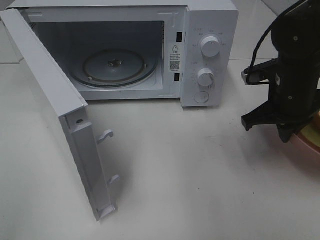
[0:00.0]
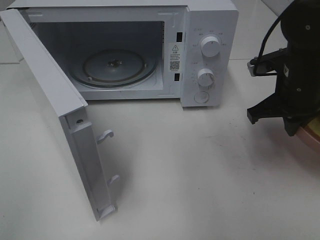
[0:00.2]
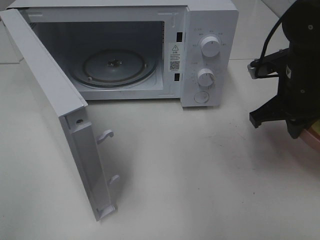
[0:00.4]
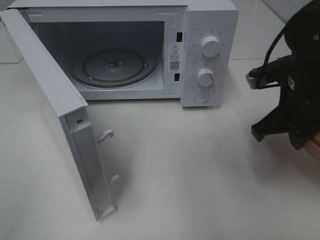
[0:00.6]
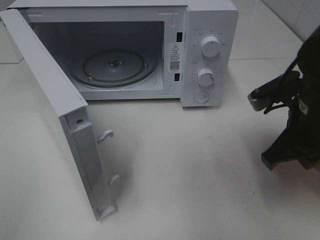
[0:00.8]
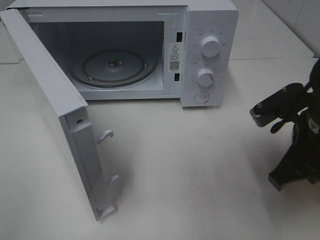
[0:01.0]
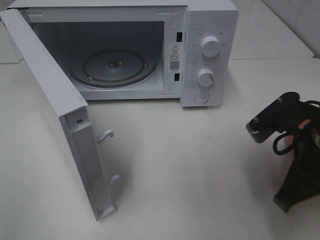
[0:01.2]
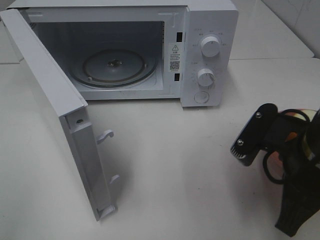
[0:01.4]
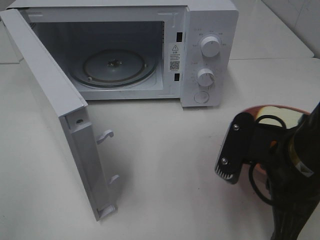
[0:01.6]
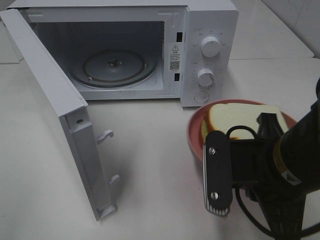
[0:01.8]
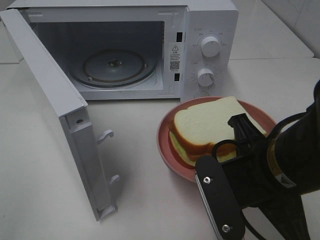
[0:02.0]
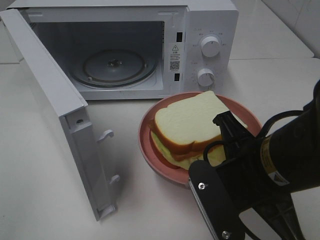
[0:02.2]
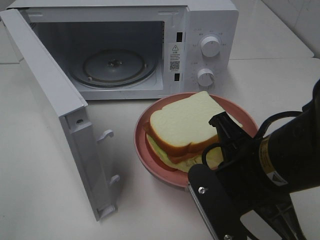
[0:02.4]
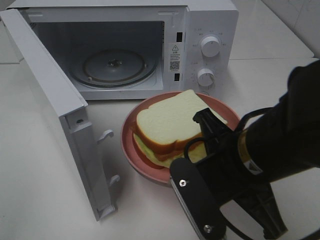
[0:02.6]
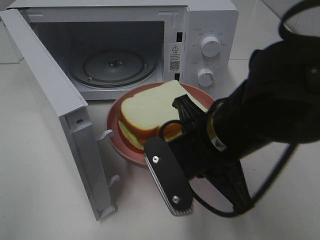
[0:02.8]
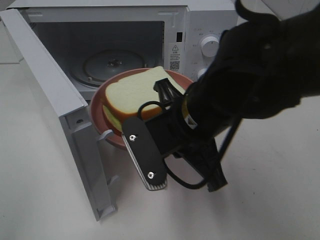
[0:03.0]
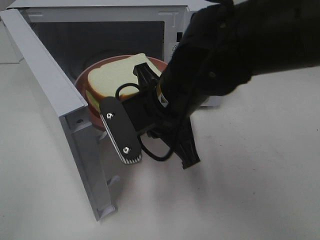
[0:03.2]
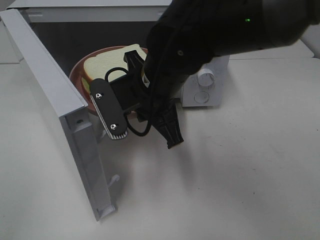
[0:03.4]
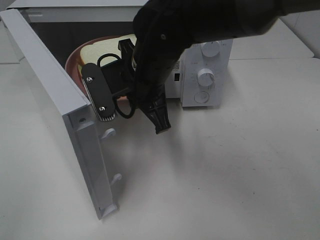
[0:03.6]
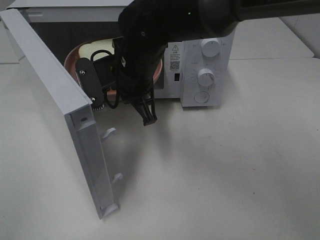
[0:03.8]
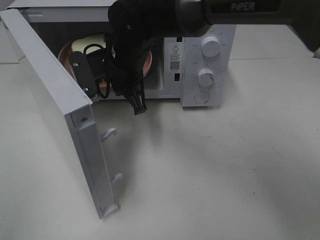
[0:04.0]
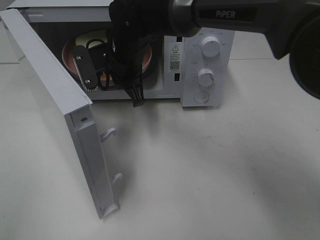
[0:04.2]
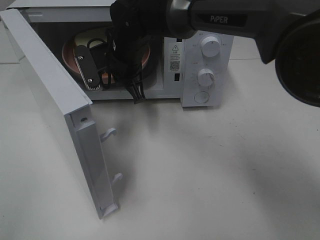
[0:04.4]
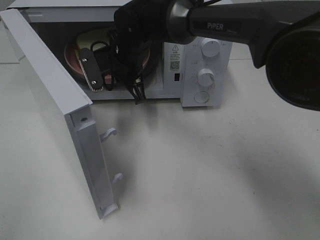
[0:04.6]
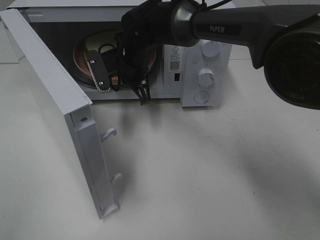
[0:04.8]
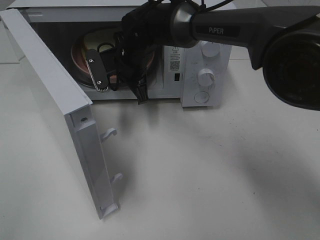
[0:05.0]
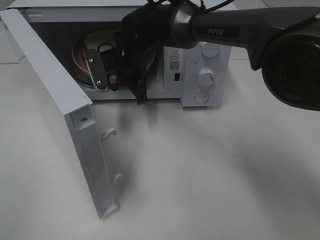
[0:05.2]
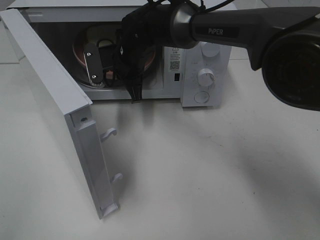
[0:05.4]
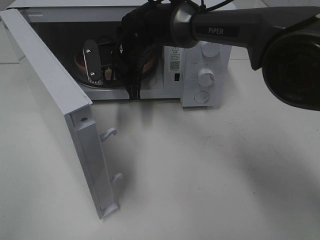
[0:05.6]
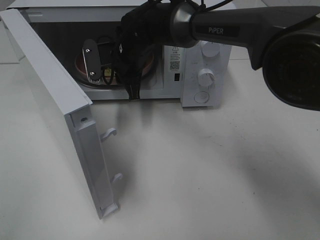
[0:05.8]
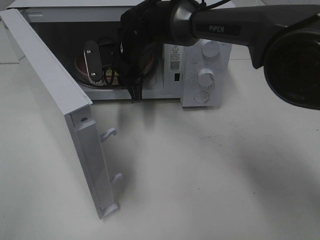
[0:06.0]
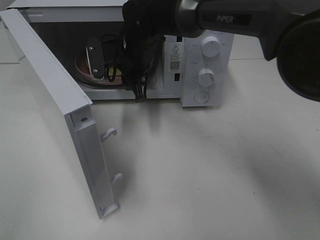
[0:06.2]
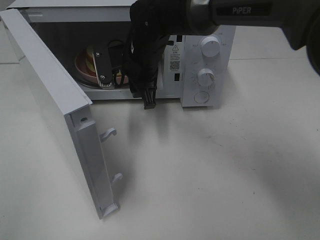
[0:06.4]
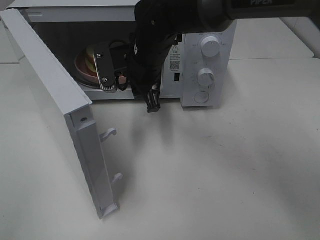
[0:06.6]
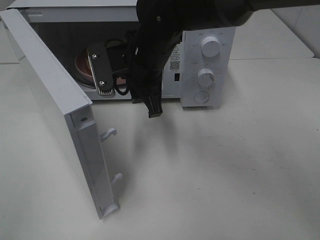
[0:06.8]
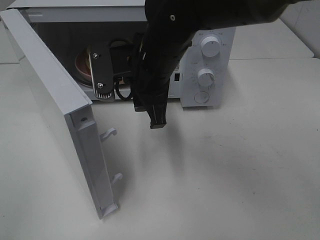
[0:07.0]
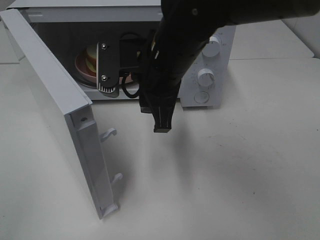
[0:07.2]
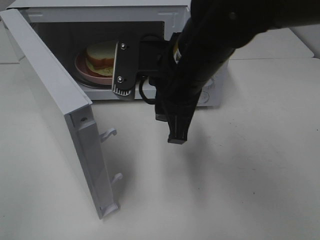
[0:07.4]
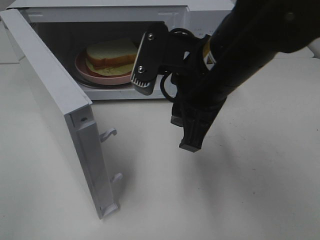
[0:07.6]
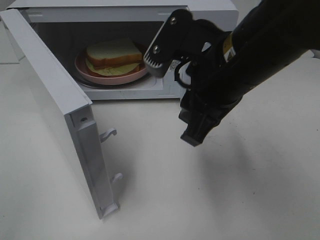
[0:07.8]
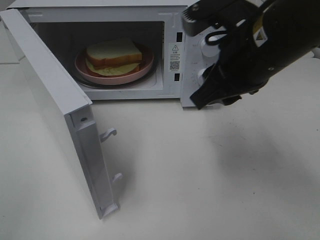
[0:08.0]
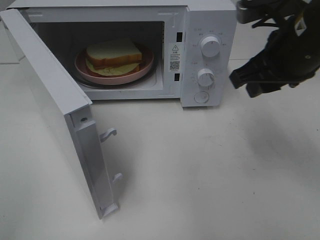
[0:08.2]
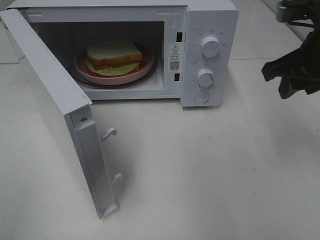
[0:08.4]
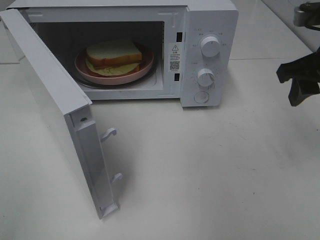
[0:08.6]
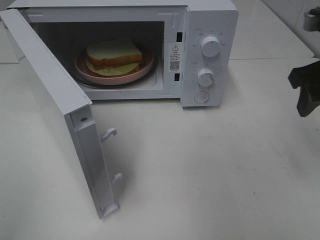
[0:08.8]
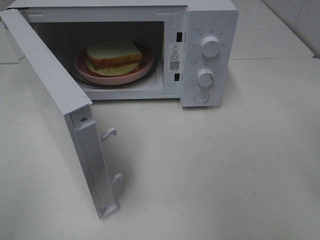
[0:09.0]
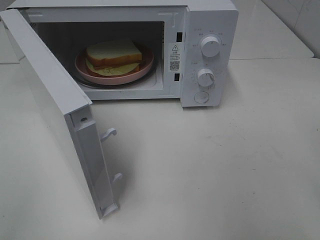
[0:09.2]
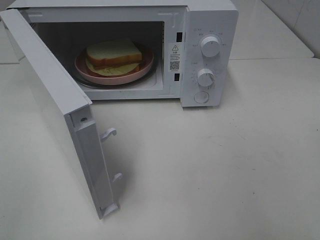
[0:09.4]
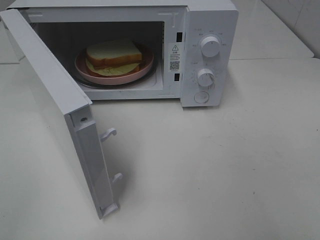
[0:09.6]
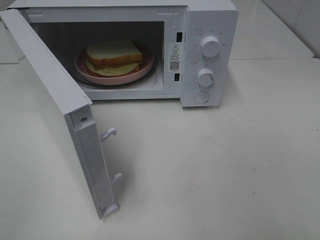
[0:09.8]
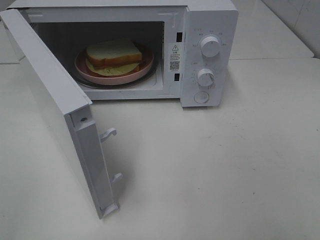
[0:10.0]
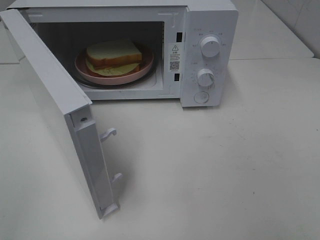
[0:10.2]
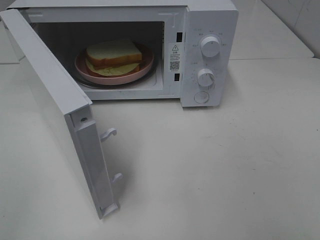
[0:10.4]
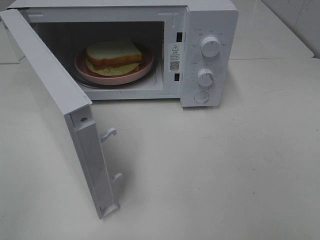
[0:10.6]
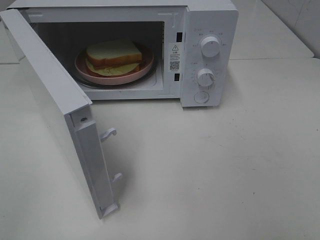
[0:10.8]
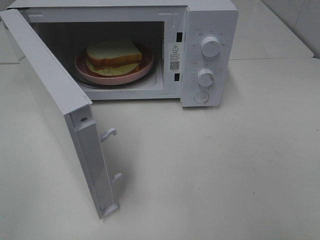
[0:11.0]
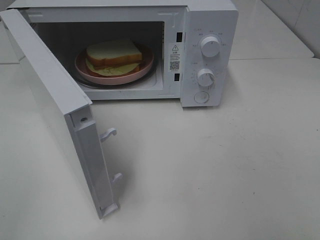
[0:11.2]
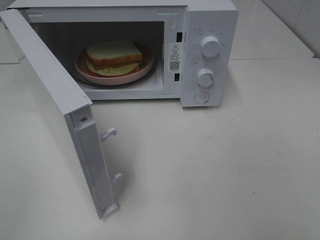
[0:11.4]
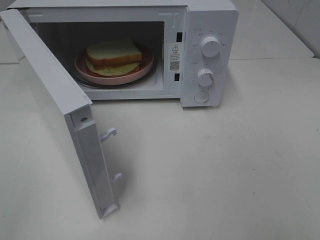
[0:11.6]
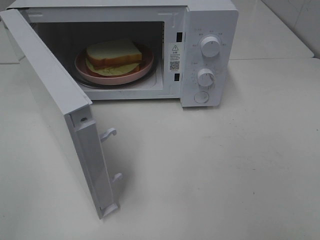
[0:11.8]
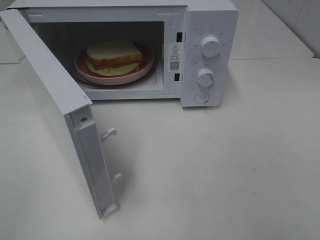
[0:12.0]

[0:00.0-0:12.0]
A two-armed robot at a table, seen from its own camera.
Task of the whole recording: Heat Sandwich.
Step, 0:00.0 to 0:06.6: Right hand: place the plate in the microwave.
0:00.0 to 0:01.6: The right gripper heads backward and to the left, covering about 15 cm.
0:01.6 to 0:03.0: The right gripper travels to the left and forward by some 10 cm.
0:03.0 to 0:04.4: The right gripper is displaced forward and to the left by approximately 20 cm.
0:04.4 to 0:06.0: The right gripper opens its fingers.
0:06.0 to 0:07.6: The right gripper is displaced backward, to the right and upward by some 25 cm.
0:07.6 to 0:09.0: The right gripper is displaced to the right by approximately 20 cm, and opens up.
0:10.4 to 0:12.0: Both grippers stay put.

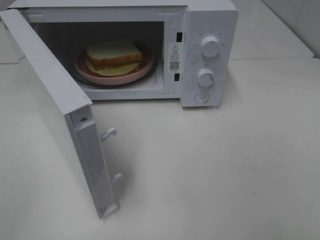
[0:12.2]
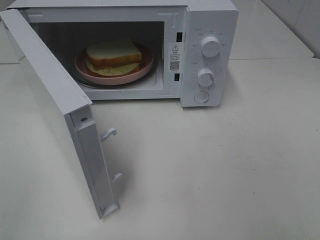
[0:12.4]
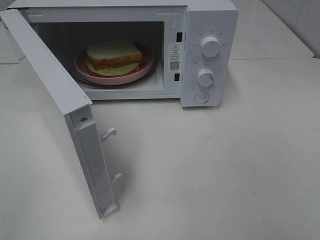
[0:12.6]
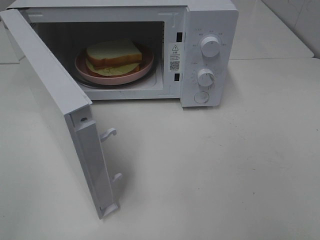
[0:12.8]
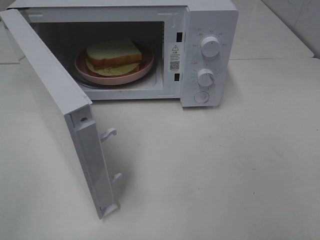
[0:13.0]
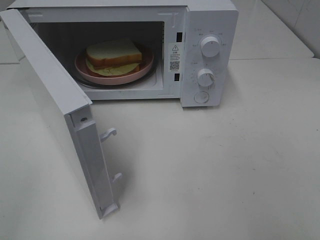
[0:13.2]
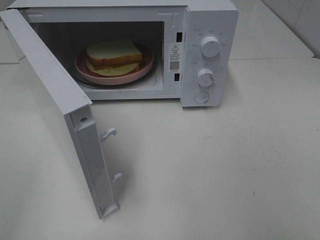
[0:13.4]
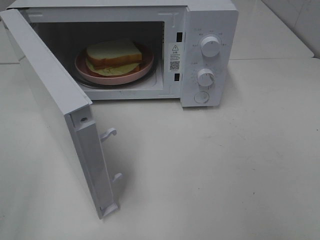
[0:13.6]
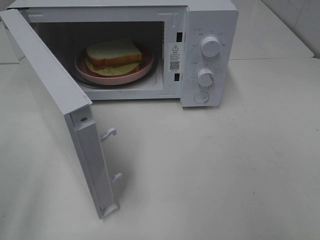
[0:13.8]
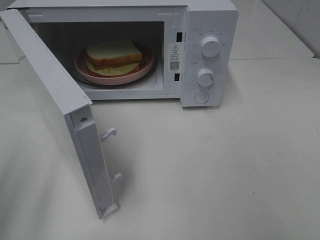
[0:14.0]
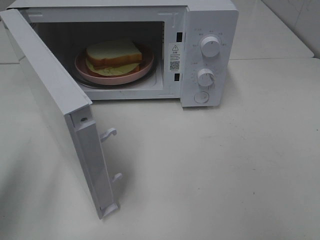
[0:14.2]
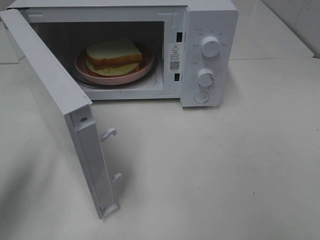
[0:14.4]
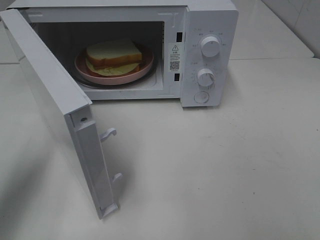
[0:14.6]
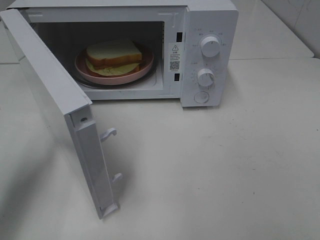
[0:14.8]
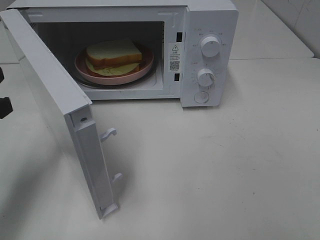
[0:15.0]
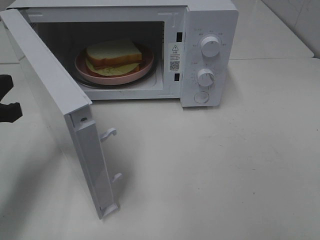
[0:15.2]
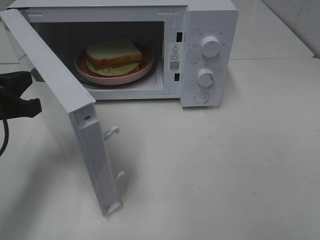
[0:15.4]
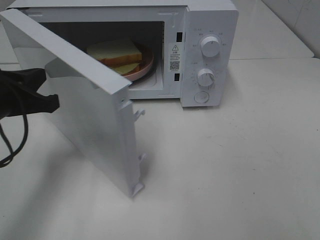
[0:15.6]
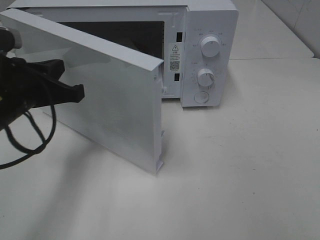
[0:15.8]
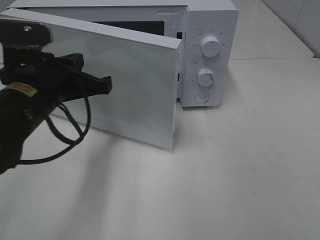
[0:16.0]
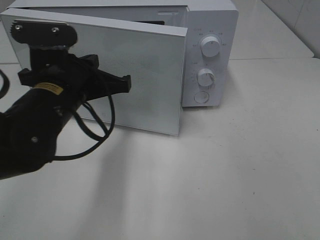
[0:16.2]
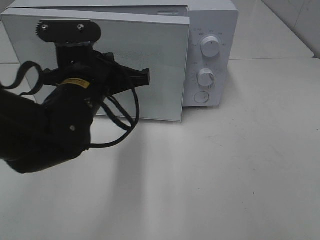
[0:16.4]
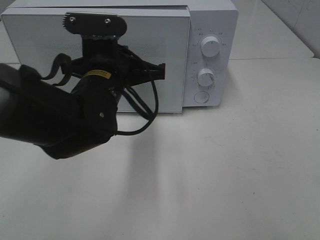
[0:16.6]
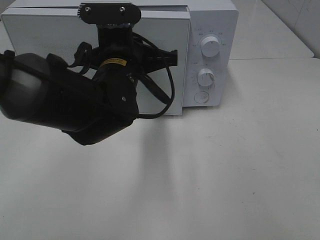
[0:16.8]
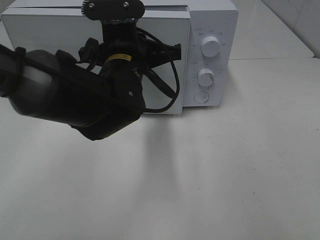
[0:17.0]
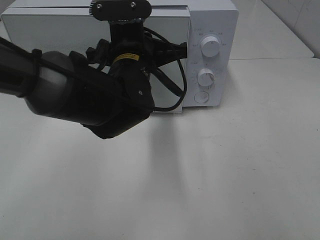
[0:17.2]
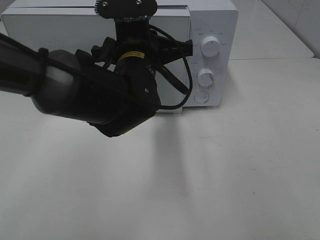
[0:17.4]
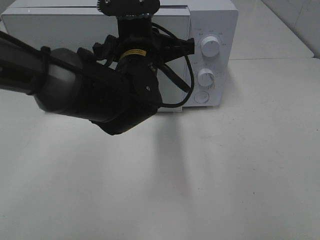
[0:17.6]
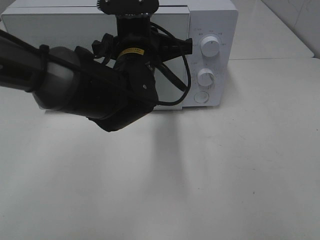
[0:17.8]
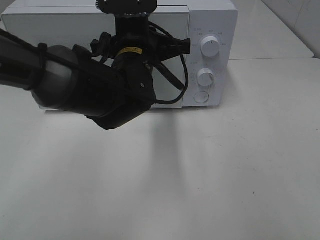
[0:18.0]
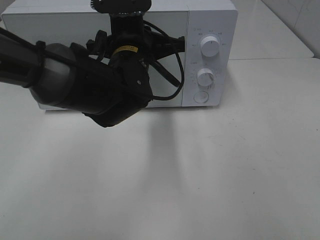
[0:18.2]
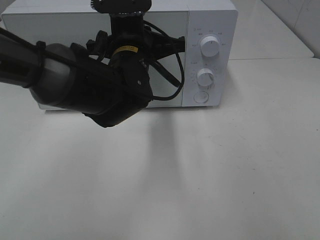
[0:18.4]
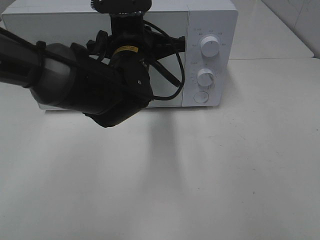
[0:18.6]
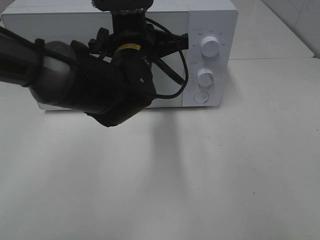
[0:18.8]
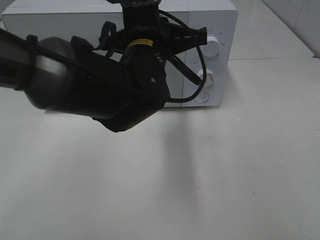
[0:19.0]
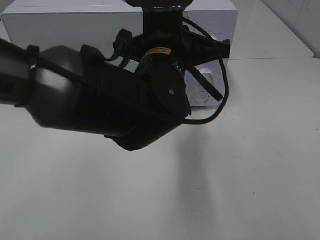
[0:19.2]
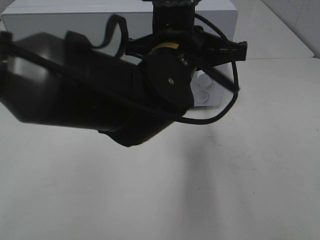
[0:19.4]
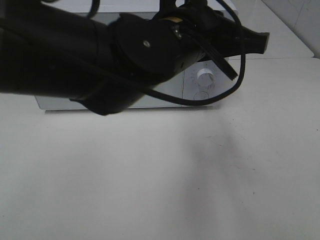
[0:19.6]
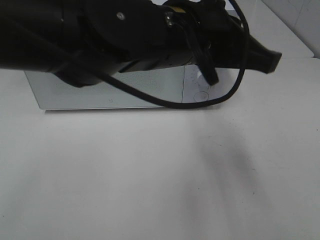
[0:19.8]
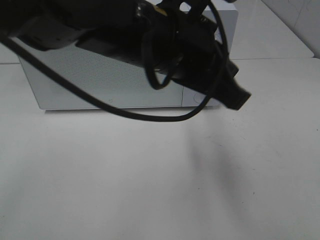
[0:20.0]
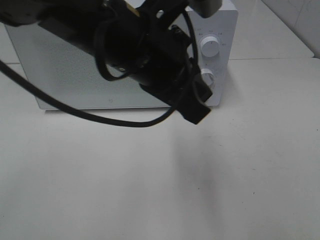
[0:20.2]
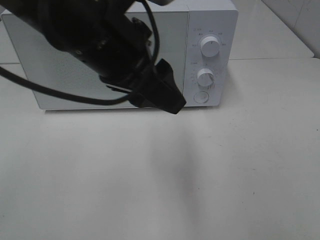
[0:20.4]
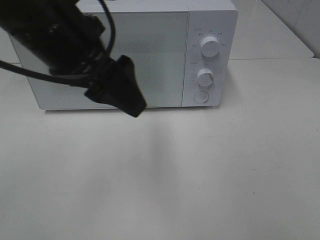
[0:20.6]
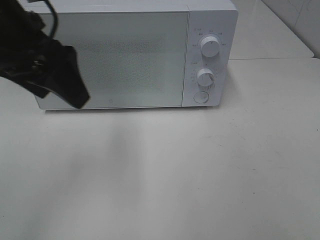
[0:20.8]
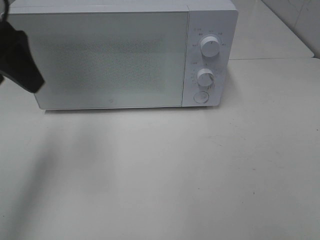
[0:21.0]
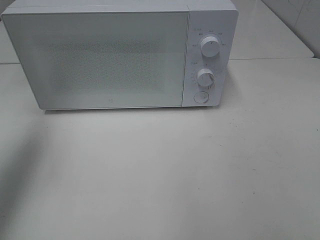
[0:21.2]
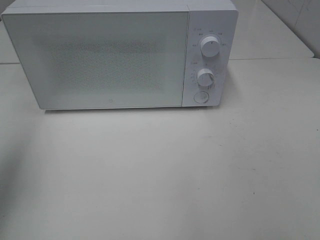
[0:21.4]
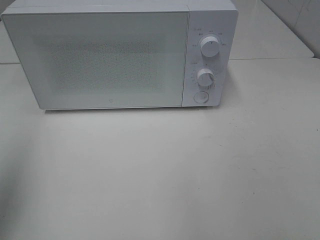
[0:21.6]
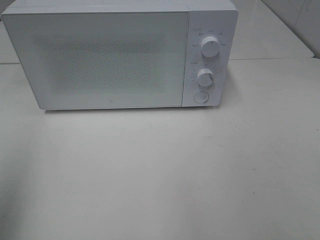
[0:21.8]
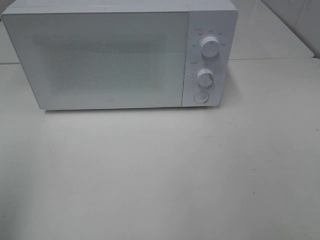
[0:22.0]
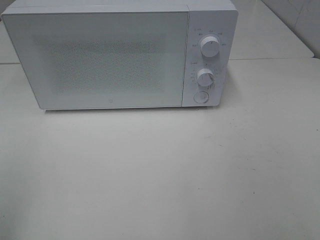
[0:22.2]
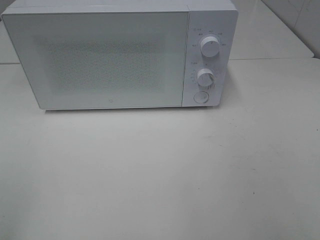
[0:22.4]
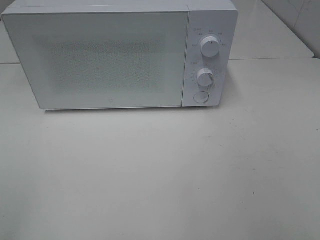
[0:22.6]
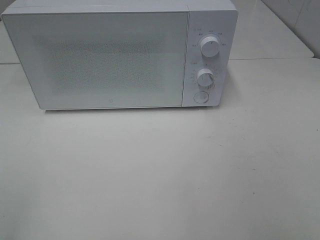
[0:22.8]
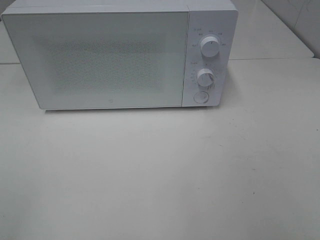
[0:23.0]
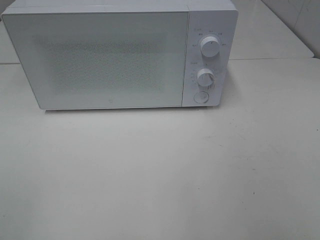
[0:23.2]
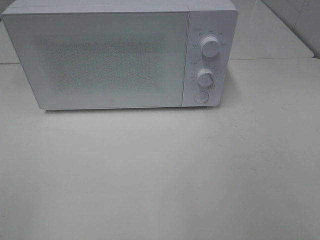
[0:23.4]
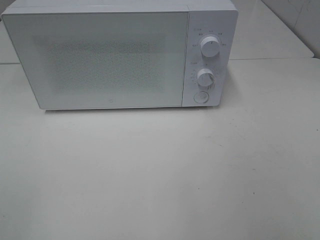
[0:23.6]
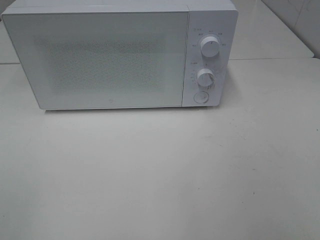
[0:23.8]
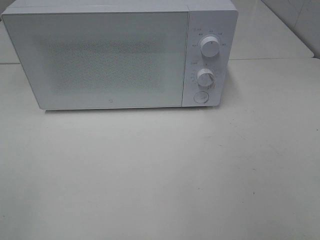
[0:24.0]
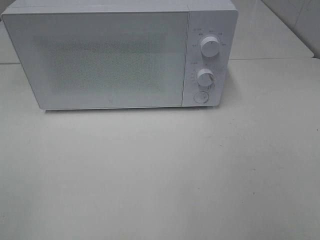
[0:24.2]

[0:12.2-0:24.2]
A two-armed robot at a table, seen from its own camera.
Task of the whole recording: Heat Sandwich.
Step, 0:12.2 to 0:18.0: Left hand: close the microwave door.
0:13.8 to 0:15.2: The left gripper travels forward and downward by approximately 15 cm, and closes its fingers.
0:15.2 to 0:16.6: The left gripper shifts roughly 20 cm to the right.
0:16.6 to 0:18.2: The left gripper ends up about 5 cm from where it was.
0:18.2 to 0:19.8: The left gripper is displaced backward, upward and to the right by approximately 15 cm.
0:19.8 to 0:21.2: The left gripper shifts some 35 cm to the left, and opens its fingers.
0:21.2 to 0:22.6: The left gripper shifts some 25 cm backward.
